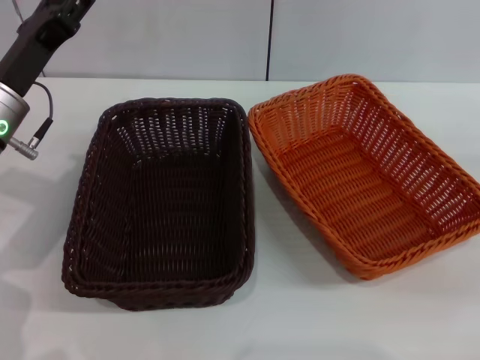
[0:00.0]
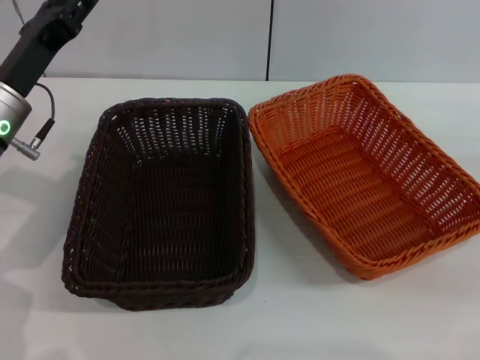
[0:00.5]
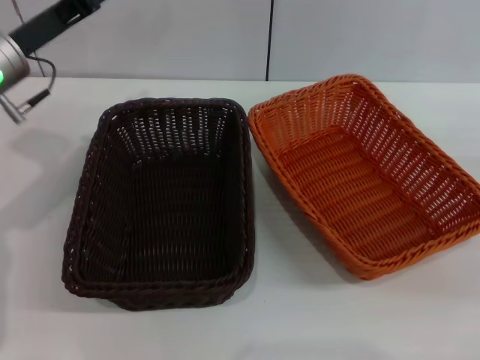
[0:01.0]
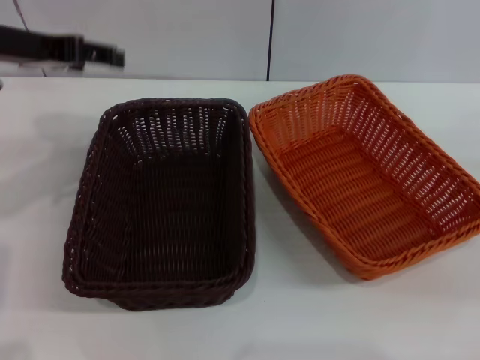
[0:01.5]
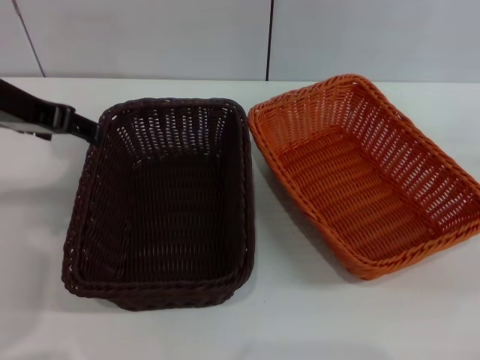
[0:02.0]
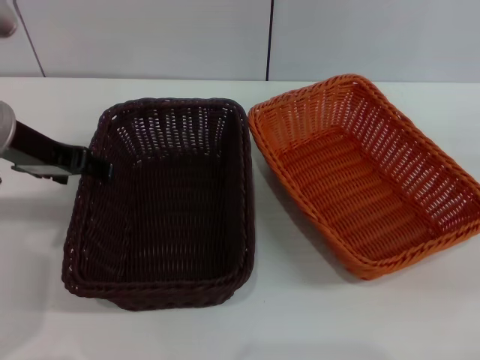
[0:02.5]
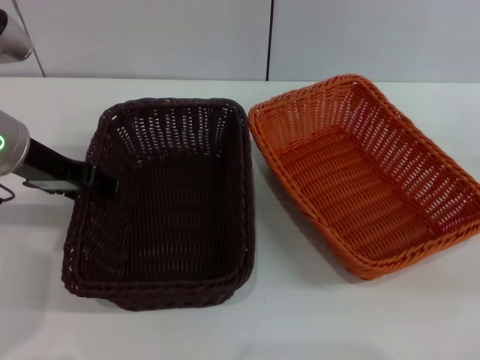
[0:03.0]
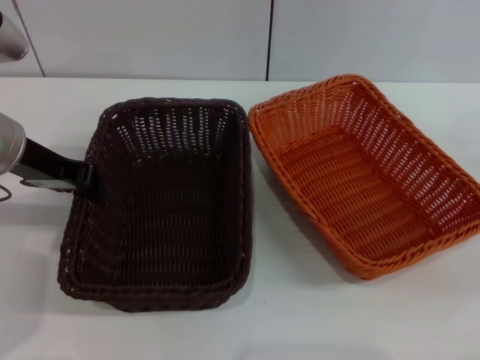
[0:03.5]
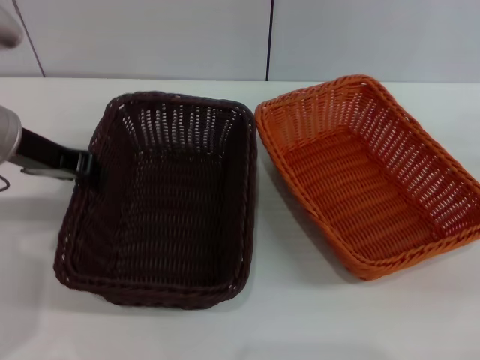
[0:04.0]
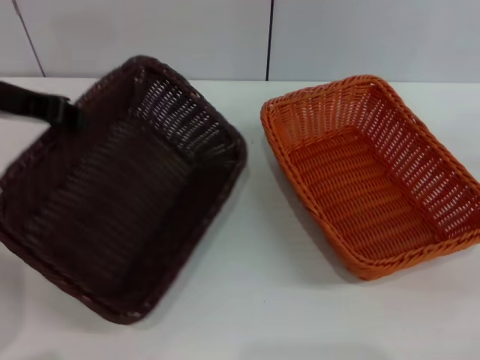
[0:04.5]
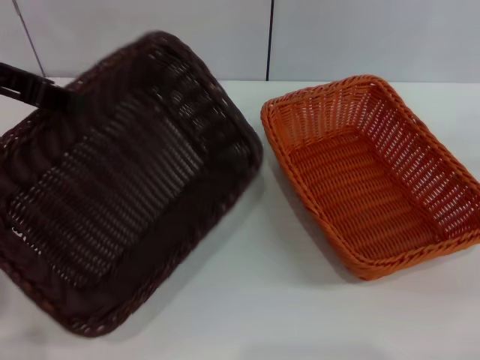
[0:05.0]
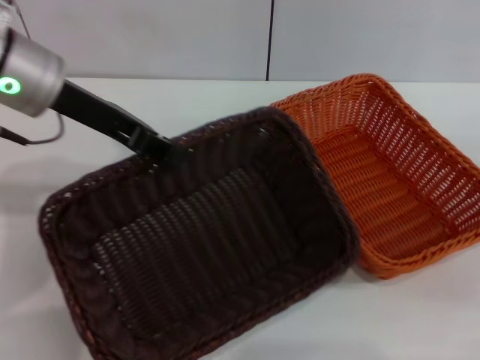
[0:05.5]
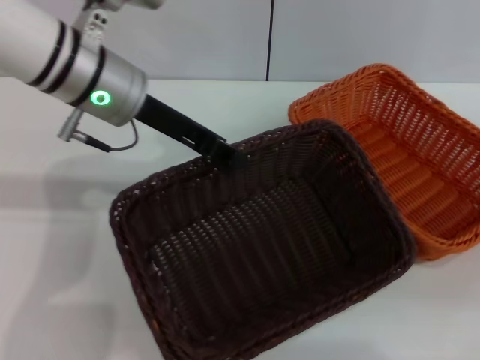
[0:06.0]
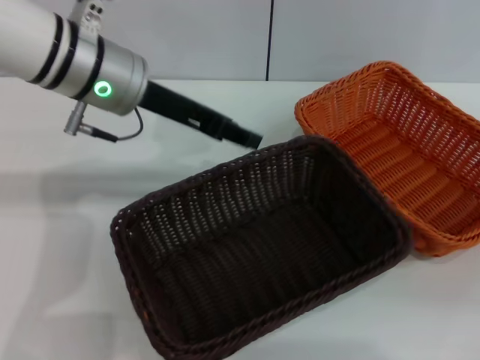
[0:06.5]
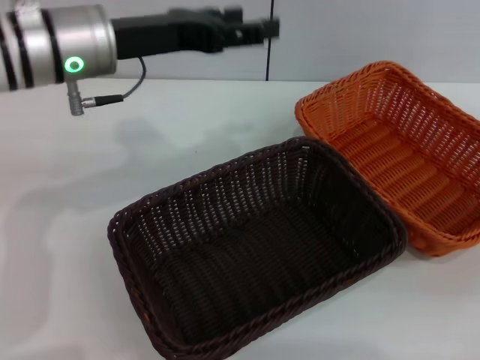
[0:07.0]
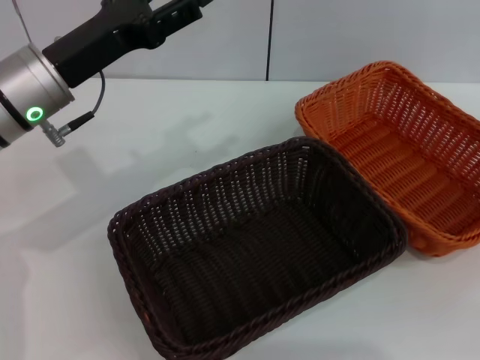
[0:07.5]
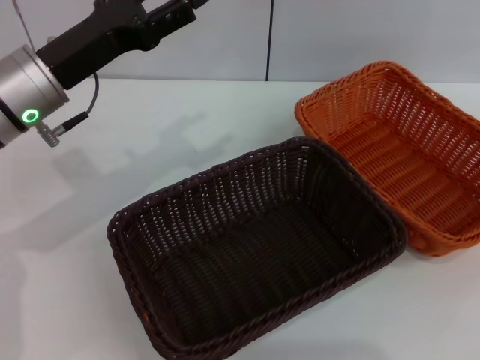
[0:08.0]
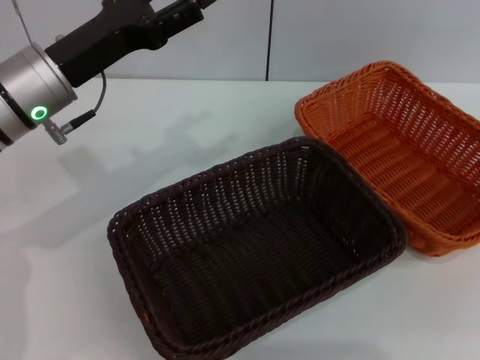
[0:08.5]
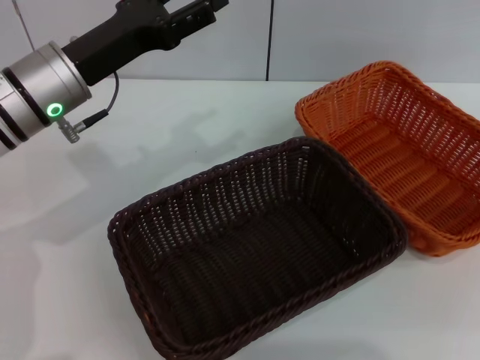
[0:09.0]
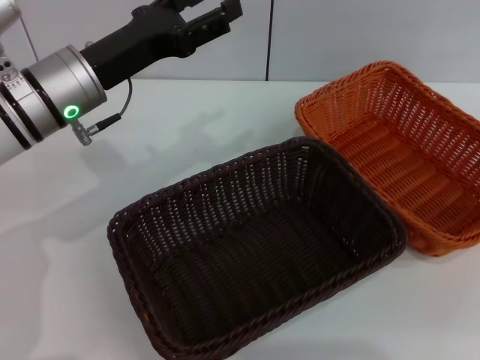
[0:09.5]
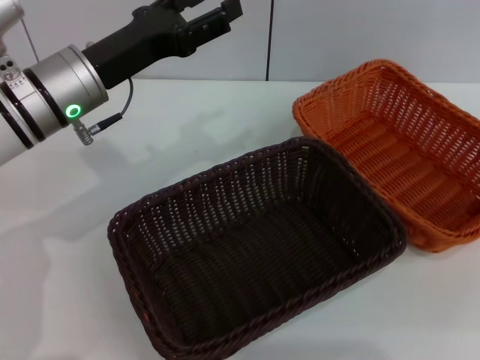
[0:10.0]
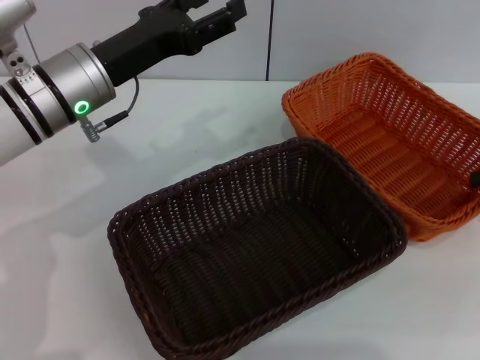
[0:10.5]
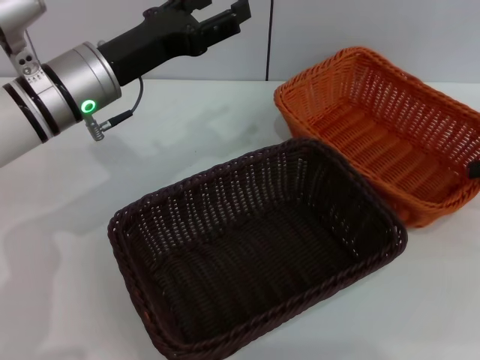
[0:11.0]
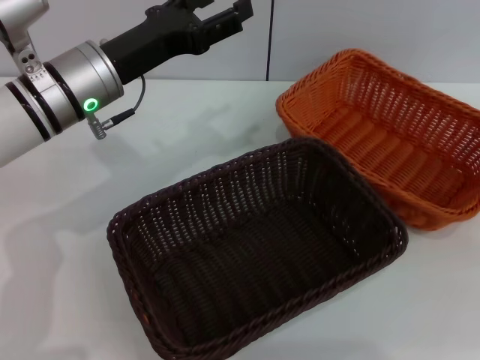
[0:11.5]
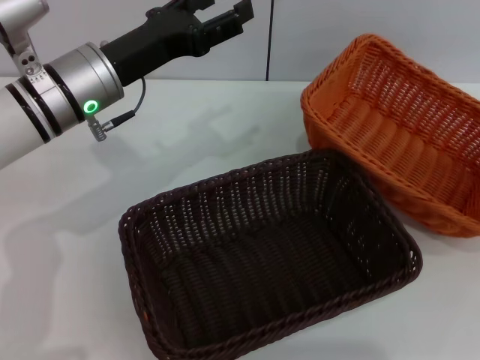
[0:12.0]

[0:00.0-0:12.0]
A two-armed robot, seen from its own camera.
Step, 0:00.0 to 0:04.0: Pick up the dark basket with the left gripper.
Step, 0:05.0 to 0:06.5: Place the dark basket in the center of view with the left gripper.
0:00.0 to 0:02.0: The left gripper heads upward, covering approximately 10 cm.
0:02.0 to 0:04.0: The left gripper moves downward, some 5 cm, and closes.
0:04.0 to 0:06.0: The left gripper travels to the right by about 10 cm.
0:06.0 to 0:08.0: The right gripper travels upward by about 15 cm. Meanwhile the left gripper goes roughly 5 cm to the left, and opens its fingers.
0:08.0 to 0:10.0: The right gripper shifts by roughly 5 cm.
0:10.0 to 0:12.0: The right gripper closes.

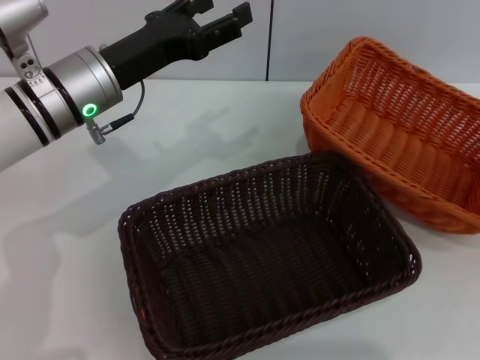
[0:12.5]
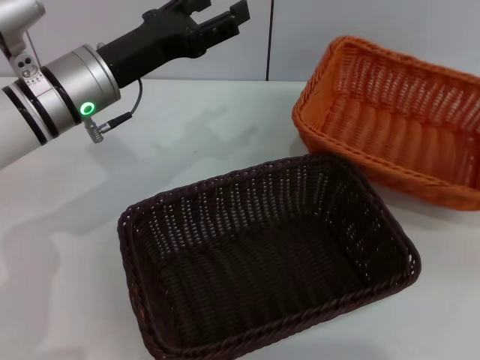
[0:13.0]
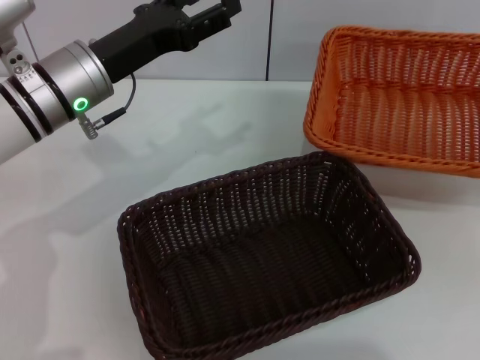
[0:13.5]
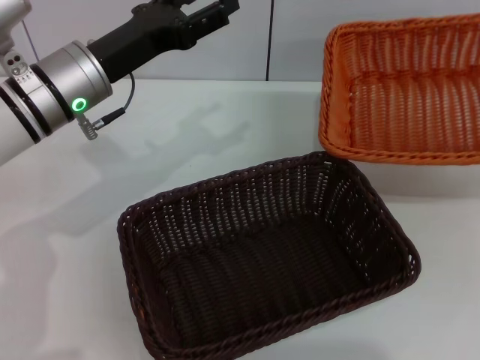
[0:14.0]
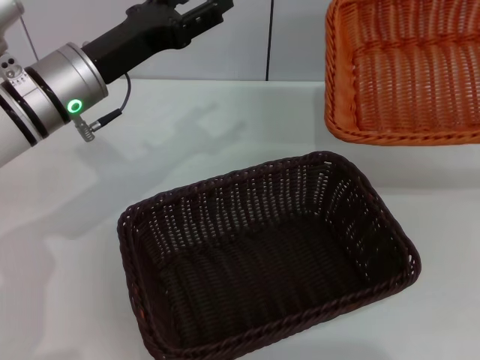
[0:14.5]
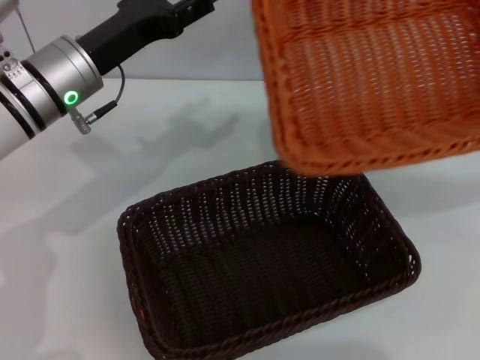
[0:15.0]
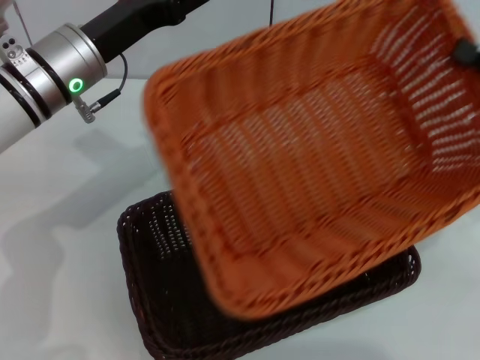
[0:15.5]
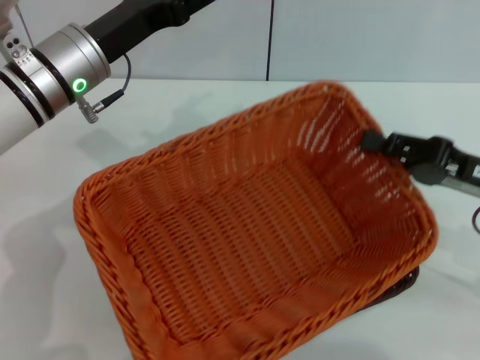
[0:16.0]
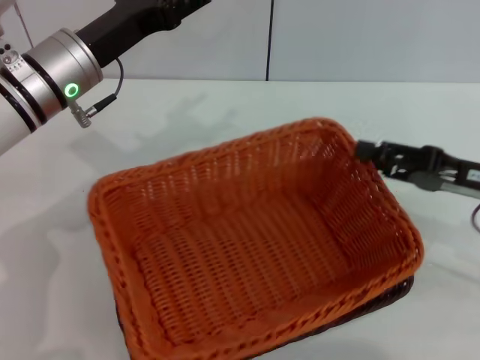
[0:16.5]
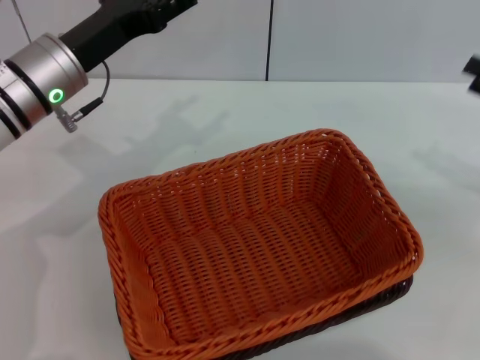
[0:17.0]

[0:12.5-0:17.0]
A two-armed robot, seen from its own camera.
Step, 0:13.5 to 0:16.5: Place the light basket on the dark basket with the right gripper.
0:14.5 to 0:17.0: The right gripper goes some 5 cm to the left, and opens its fingers.
